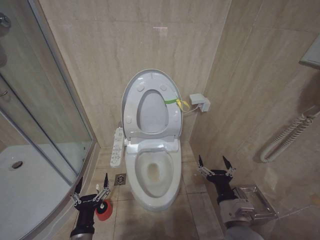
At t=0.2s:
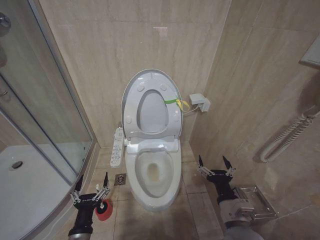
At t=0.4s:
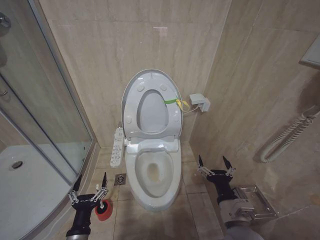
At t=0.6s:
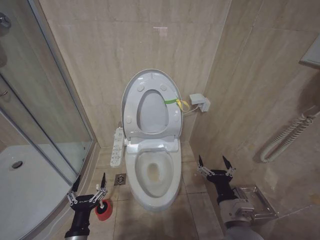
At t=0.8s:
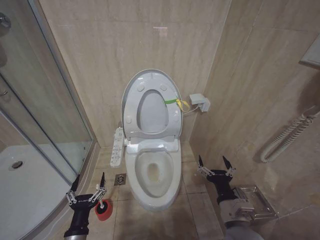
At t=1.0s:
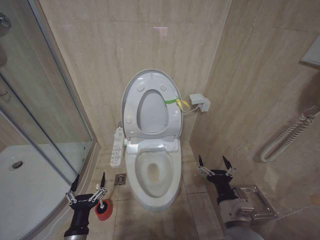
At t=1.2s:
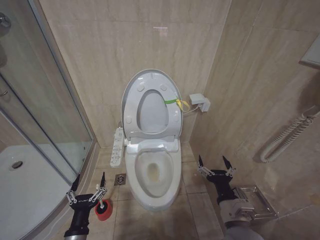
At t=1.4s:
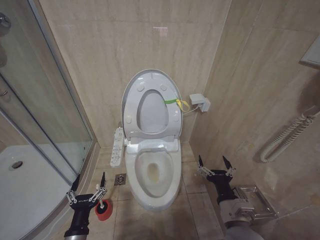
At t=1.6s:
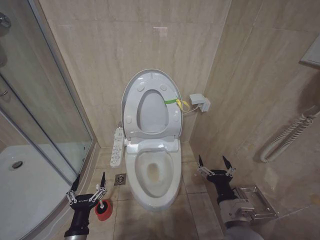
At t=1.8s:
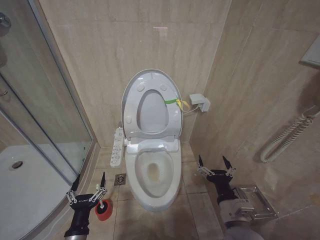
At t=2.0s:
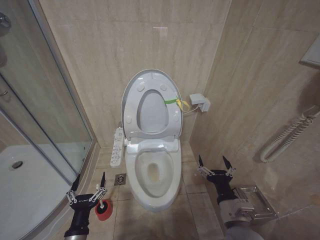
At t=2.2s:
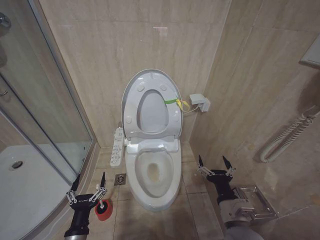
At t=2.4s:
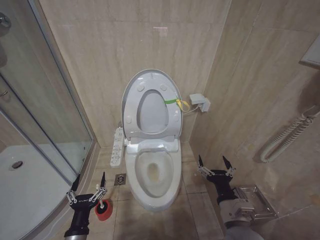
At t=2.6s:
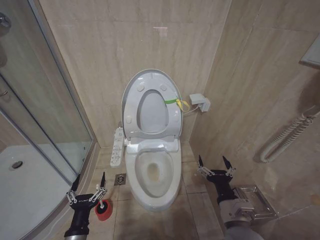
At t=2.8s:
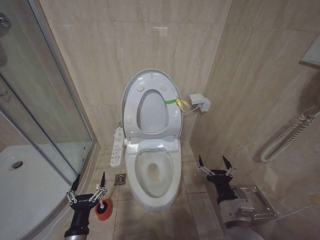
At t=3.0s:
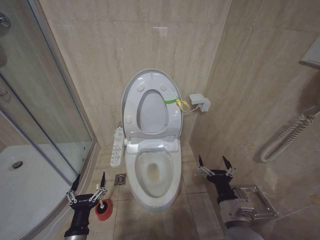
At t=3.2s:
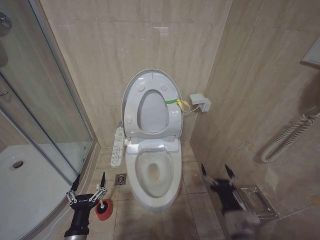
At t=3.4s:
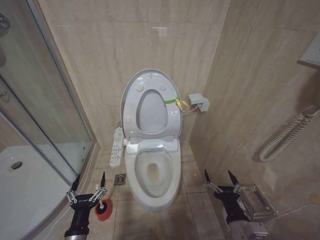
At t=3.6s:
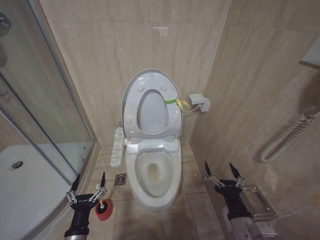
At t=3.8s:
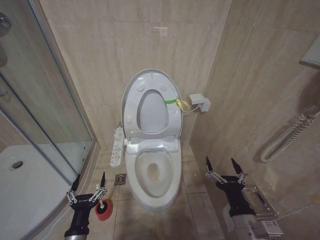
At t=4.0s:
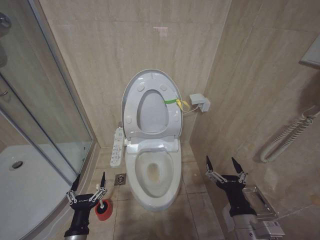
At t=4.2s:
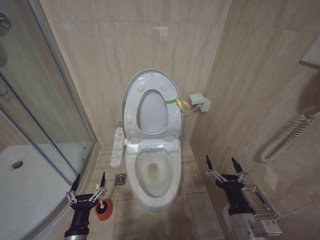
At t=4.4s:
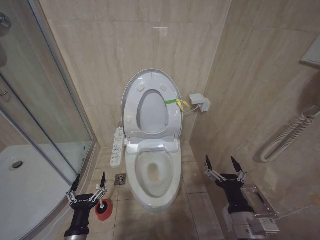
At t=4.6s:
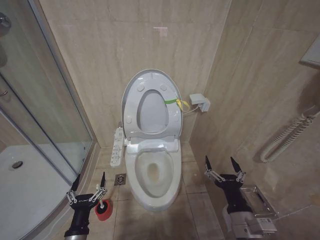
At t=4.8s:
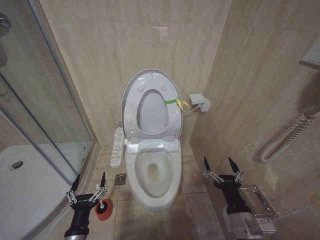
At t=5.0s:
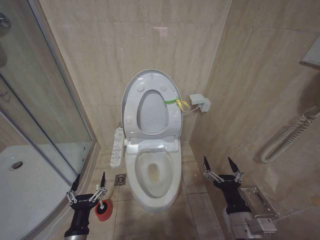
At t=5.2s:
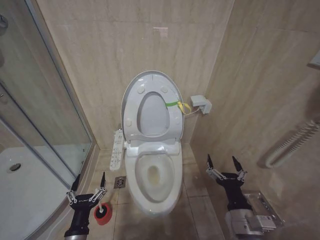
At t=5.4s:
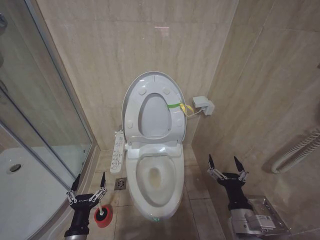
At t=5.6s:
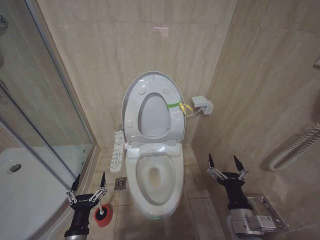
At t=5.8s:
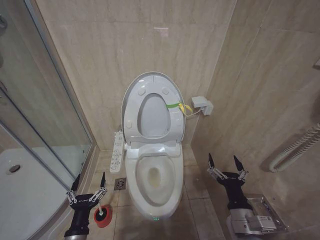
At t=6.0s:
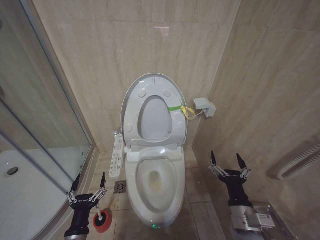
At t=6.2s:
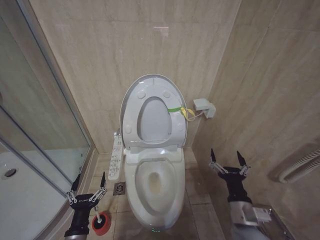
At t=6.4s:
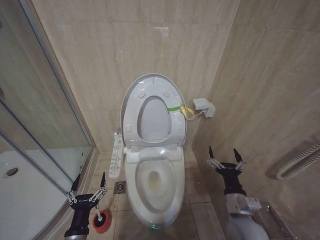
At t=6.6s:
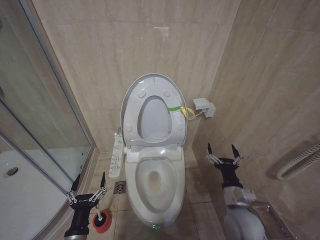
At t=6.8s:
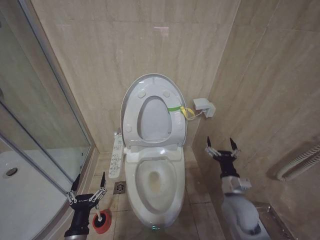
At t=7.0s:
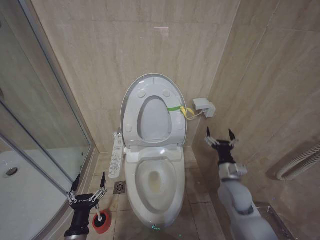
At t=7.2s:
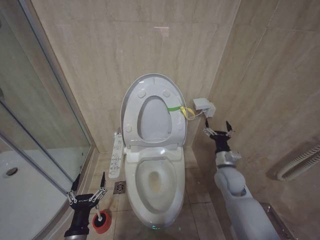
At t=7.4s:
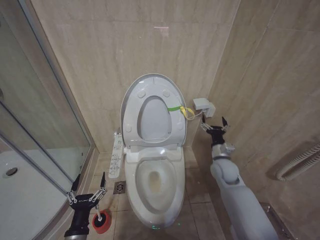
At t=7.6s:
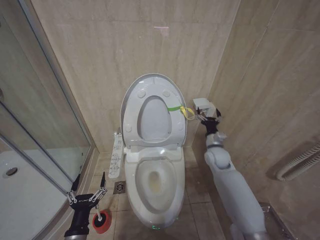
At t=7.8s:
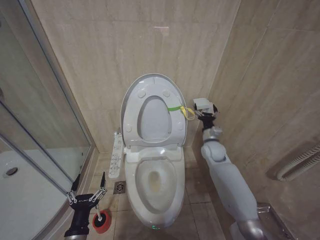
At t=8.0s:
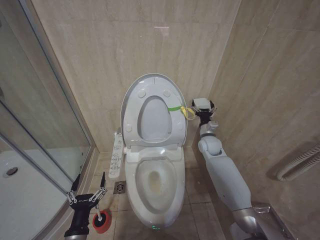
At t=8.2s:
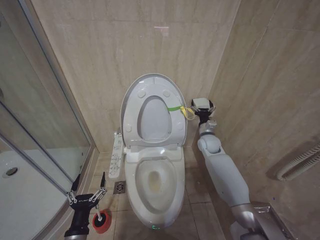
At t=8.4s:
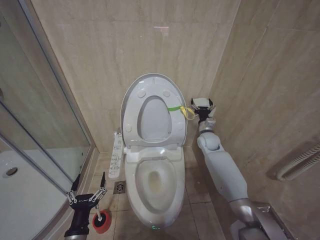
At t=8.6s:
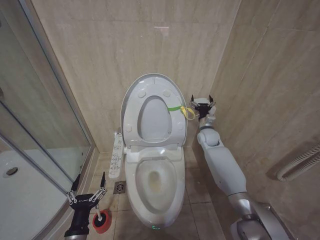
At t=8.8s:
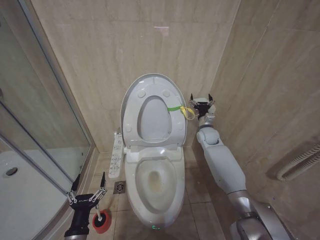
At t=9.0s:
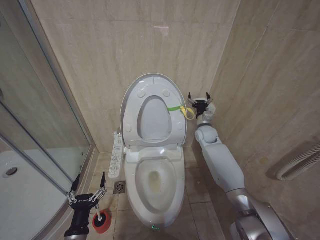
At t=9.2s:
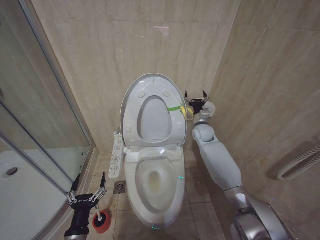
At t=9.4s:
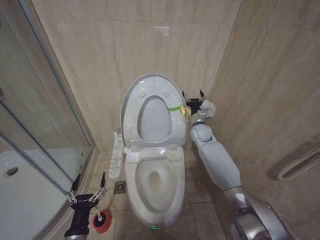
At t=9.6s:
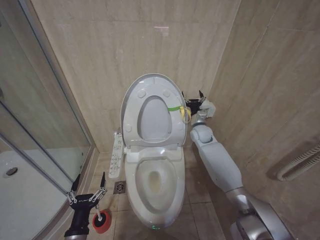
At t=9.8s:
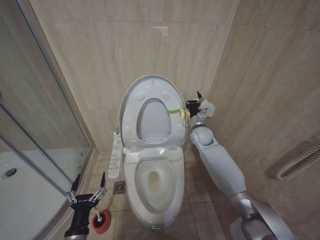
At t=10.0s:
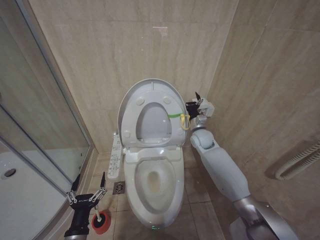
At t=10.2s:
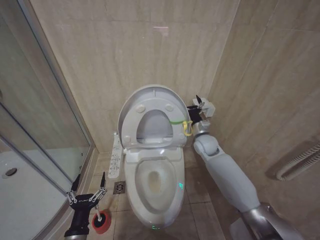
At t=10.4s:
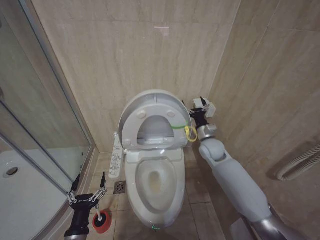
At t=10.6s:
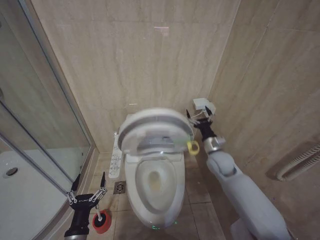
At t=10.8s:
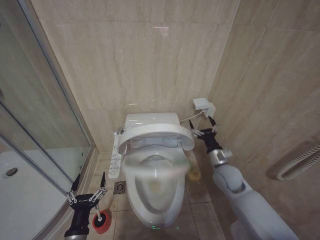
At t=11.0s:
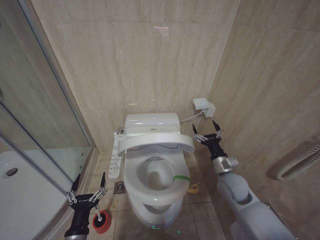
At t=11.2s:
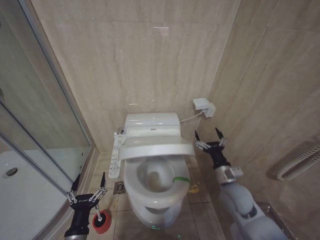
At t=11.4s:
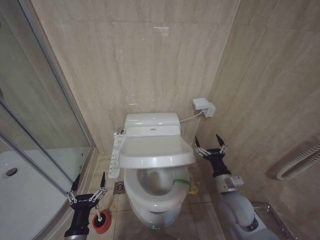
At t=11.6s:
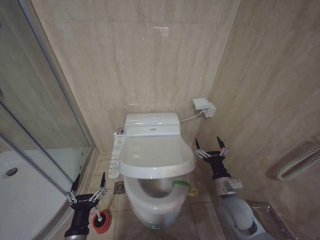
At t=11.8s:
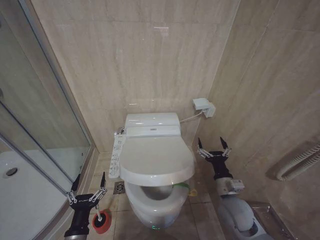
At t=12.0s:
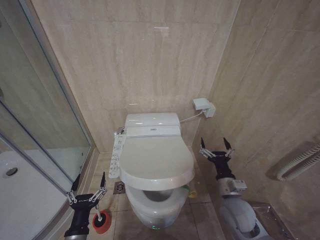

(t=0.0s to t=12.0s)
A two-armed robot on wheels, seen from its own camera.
Task of the whole recording: Open the toilet lid, clean the toilet bowl with a toilet brush, close the toilet lid, and flush.
t=0.0s - t=1.6s: The grippers stay close to where they were, moving slightly.
t=1.6s - t=3.0s: The two grippers keep their place.
t=4.4s - t=6.0s: There are only small adjustments of the grippers.
t=6.0s - t=7.6s: The right gripper goes some 25 cm forward.
t=7.6s - t=9.0s: The right gripper shifts roughly 10 cm forward.
t=9.0s - t=10.4s: The right gripper is displaced backward by some 10 cm.
t=10.4s - t=12.0s: The right gripper shifts about 20 cm backward.

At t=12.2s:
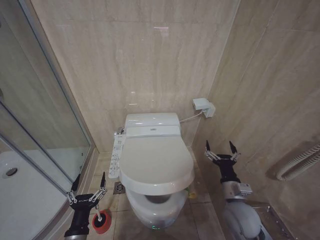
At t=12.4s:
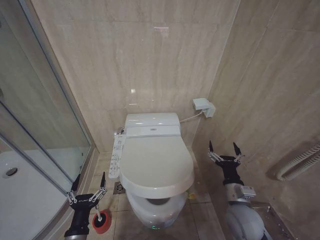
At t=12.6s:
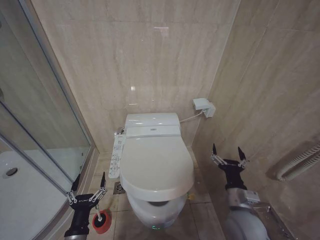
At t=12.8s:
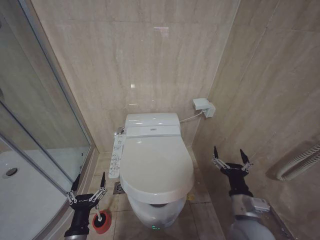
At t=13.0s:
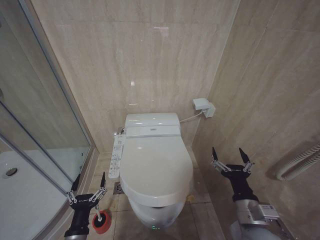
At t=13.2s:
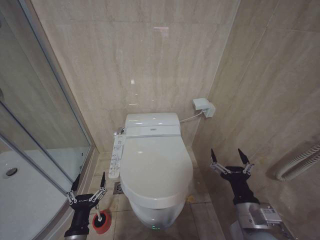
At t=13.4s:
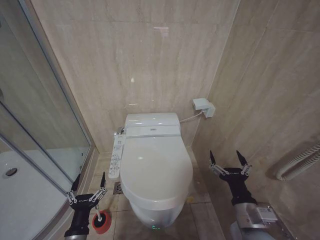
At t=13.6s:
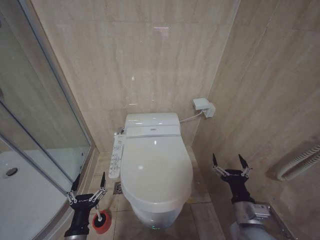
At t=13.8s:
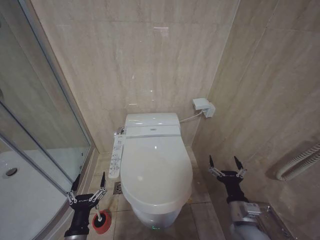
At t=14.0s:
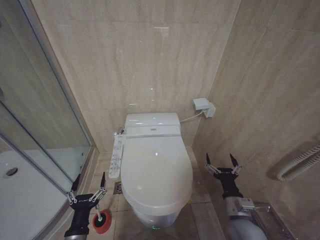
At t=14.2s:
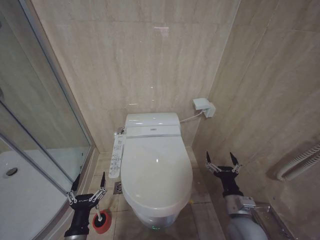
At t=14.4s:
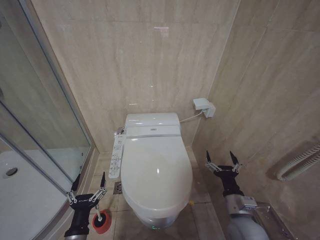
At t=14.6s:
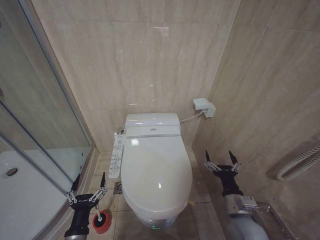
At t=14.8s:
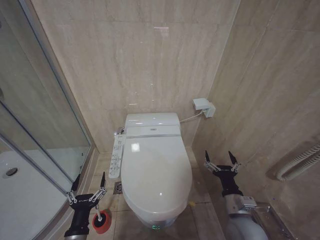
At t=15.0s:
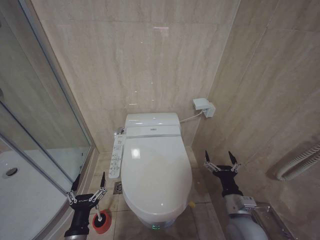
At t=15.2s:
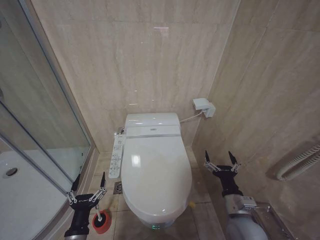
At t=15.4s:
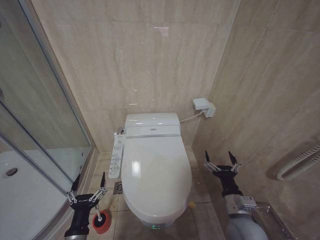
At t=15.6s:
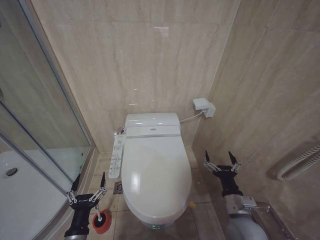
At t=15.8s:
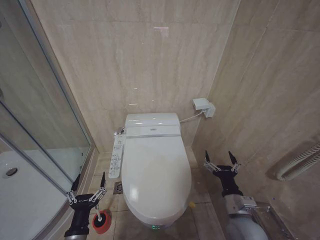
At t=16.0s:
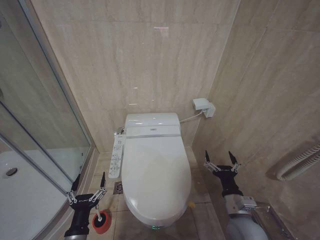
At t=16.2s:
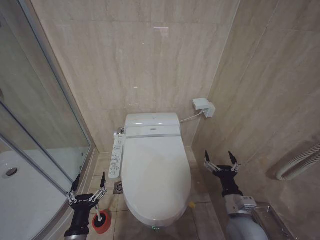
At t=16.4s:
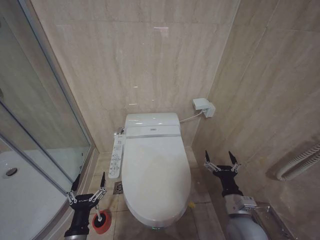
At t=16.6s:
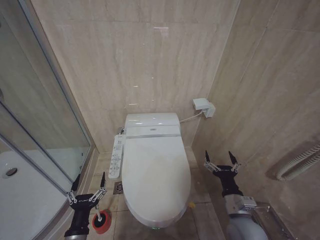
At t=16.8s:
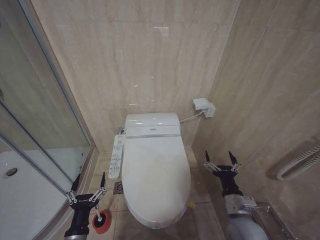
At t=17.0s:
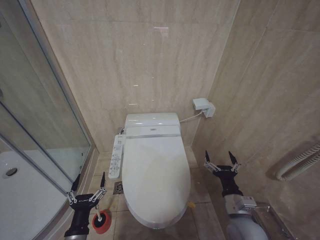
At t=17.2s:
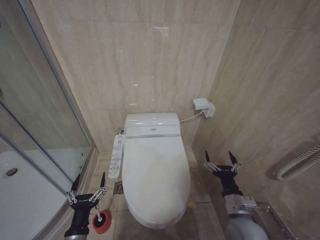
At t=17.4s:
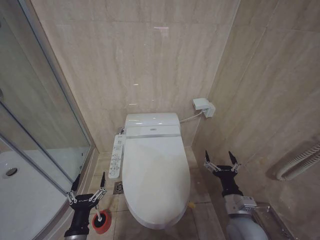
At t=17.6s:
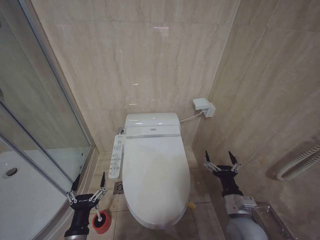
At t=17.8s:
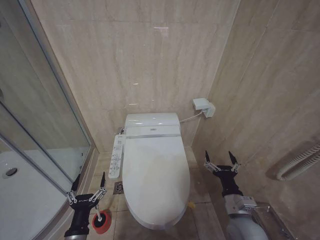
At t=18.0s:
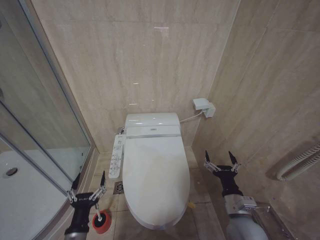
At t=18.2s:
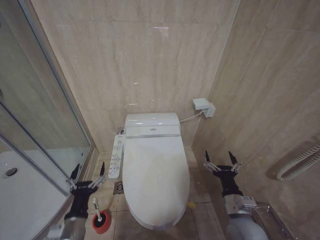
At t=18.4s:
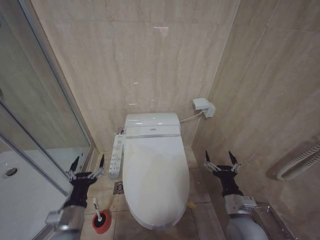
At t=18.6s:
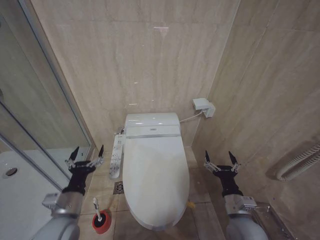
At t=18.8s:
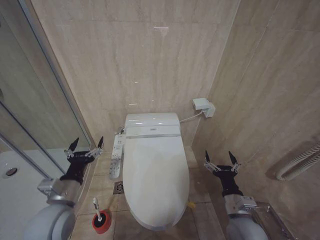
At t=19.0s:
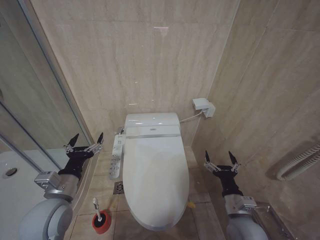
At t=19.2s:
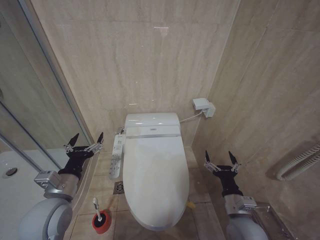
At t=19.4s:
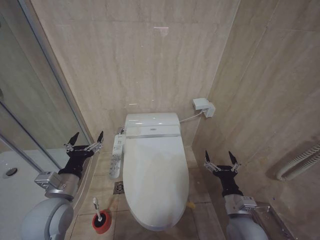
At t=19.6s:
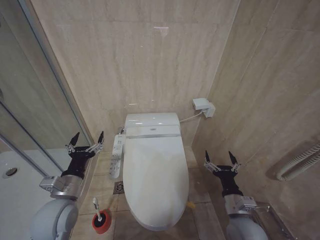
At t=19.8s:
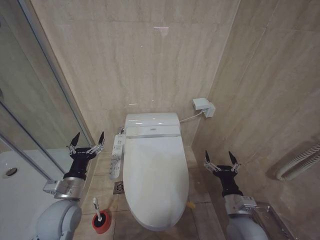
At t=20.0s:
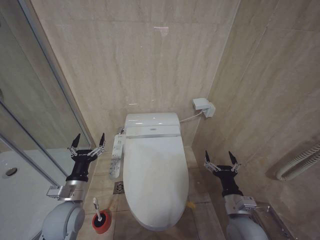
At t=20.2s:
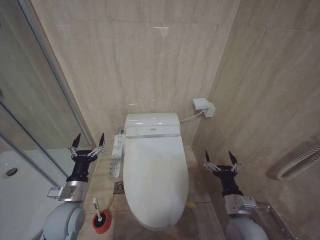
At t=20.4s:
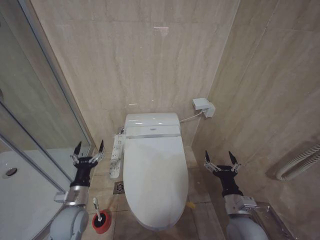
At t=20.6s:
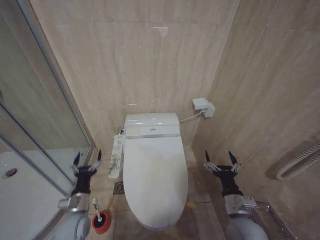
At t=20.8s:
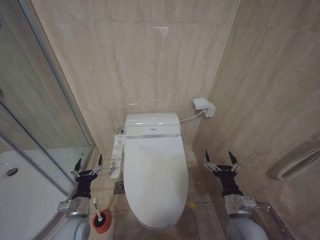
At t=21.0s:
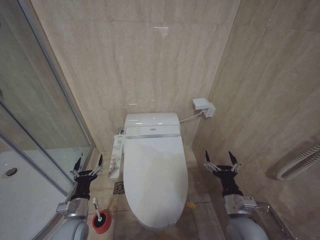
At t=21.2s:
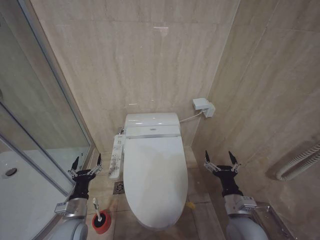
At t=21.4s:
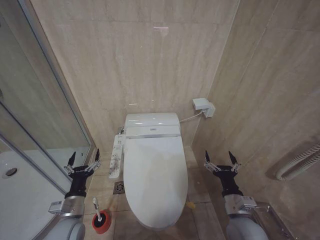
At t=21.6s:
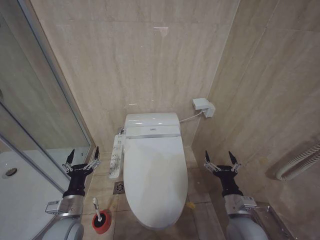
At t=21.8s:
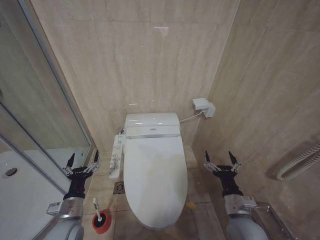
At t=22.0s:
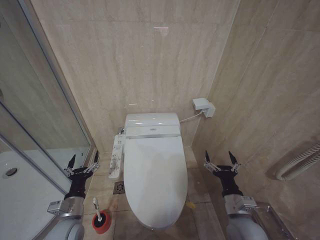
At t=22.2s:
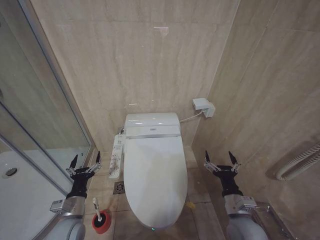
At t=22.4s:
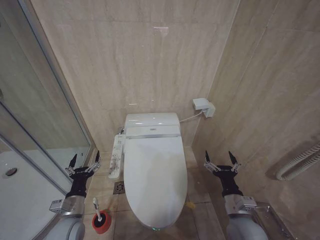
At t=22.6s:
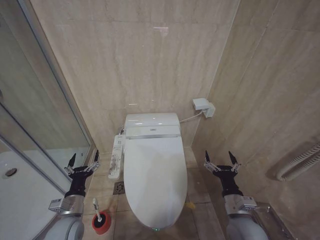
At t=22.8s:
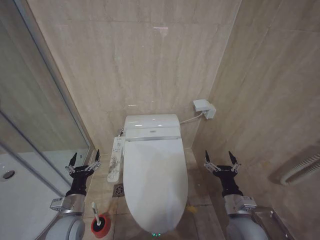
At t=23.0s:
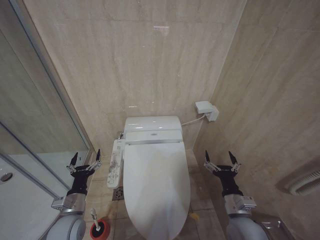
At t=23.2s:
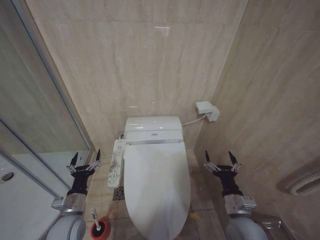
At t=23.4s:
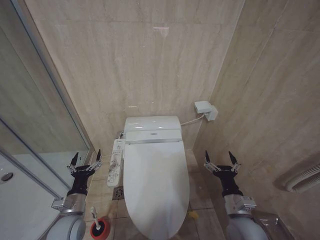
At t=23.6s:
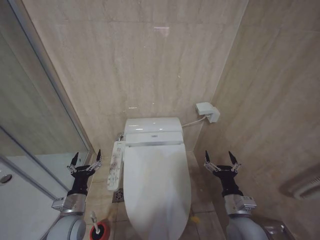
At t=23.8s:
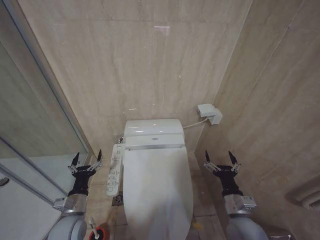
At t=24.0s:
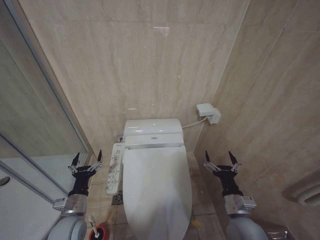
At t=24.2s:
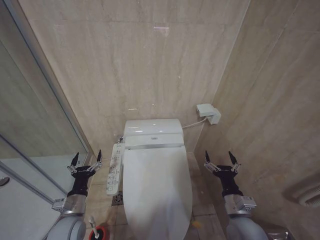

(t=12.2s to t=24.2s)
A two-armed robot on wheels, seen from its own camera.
Task of the whole recording: Open the toilet lid, clean the toilet bowl with a toilet brush, close the toilet lid, and flush.
t=12.2s - t=13.8s: The right gripper shifts roughly 5 cm backward.
t=13.8s - t=15.2s: The grippers make only small movements.
t=15.2s - t=16.6s: Neither gripper changes place.
t=16.6s - t=18.2s: The grippers make only small movements.
t=18.2s - t=19.8s: The left gripper travels upward and forward by approximately 15 cm.
t=19.8s - t=21.2s: The left gripper heads downward, covering about 15 cm.
t=21.2s - t=22.6s: There are only small adjustments of the grippers.
t=22.6s - t=24.2s: The two grippers keep their place.
